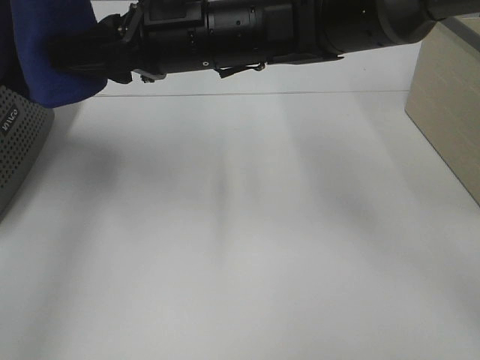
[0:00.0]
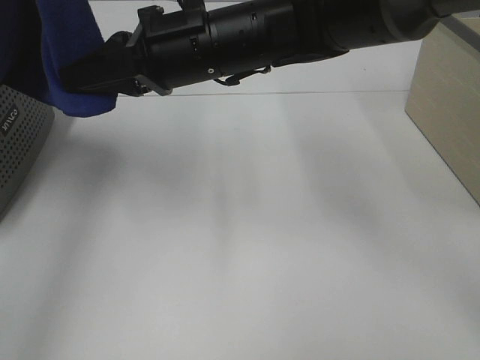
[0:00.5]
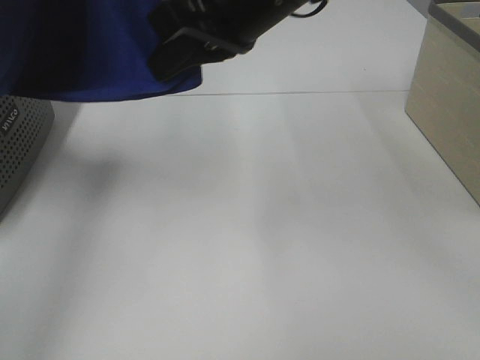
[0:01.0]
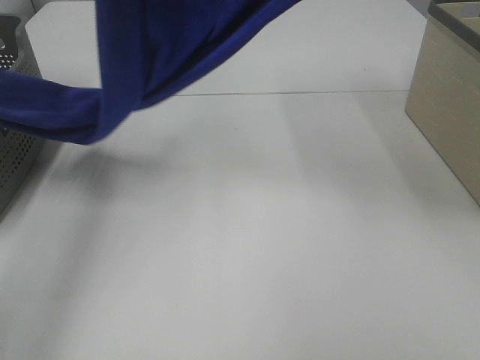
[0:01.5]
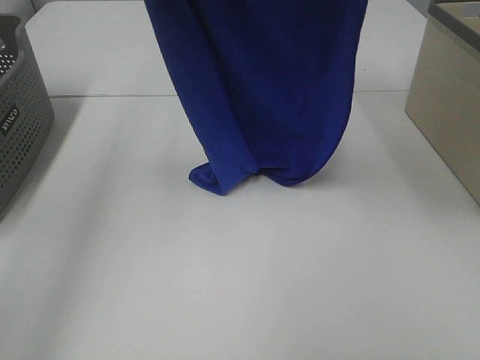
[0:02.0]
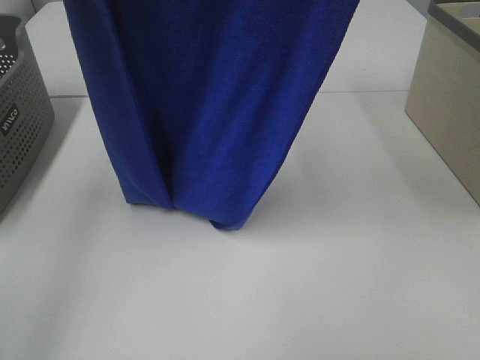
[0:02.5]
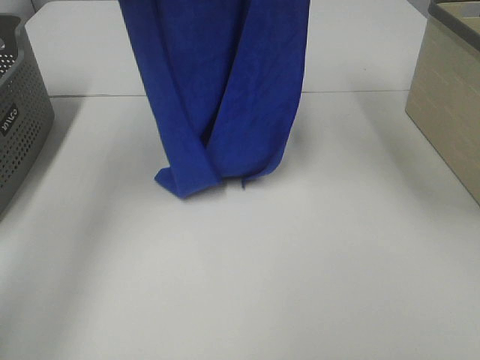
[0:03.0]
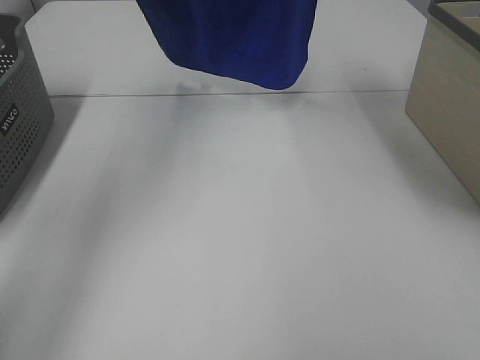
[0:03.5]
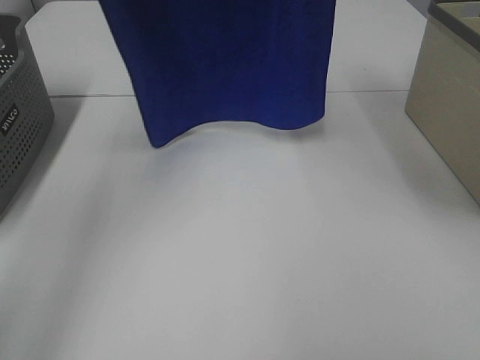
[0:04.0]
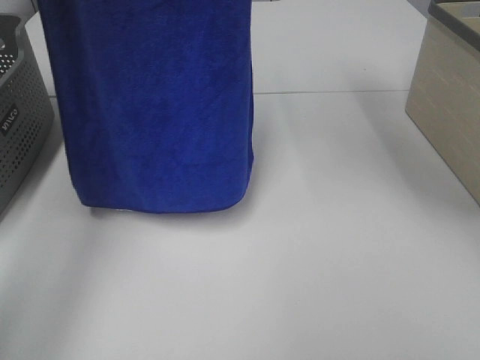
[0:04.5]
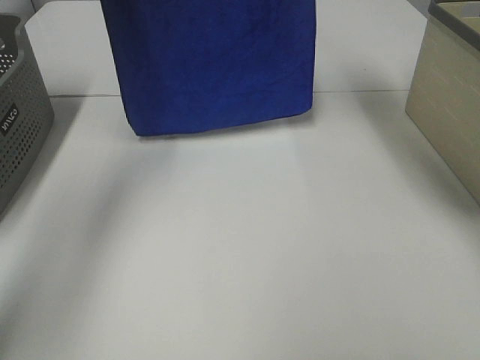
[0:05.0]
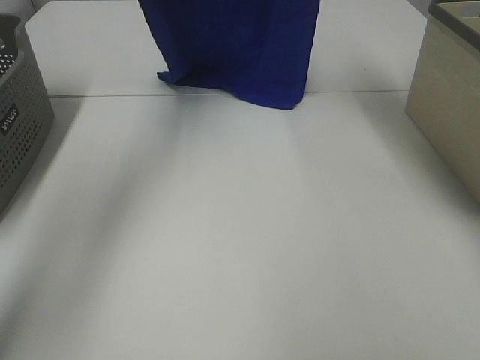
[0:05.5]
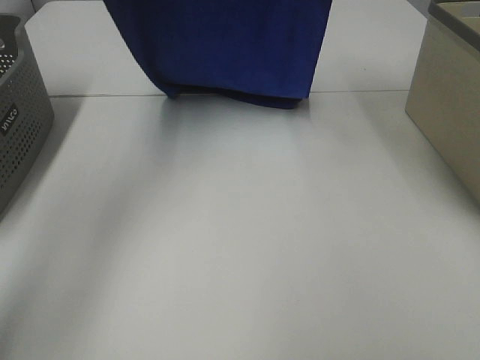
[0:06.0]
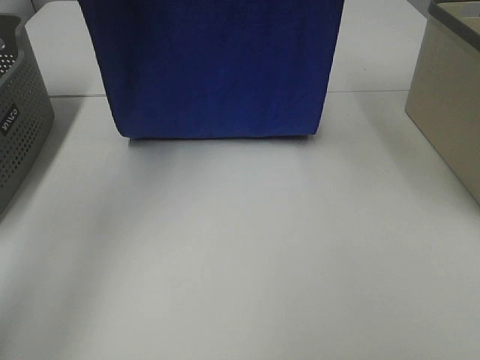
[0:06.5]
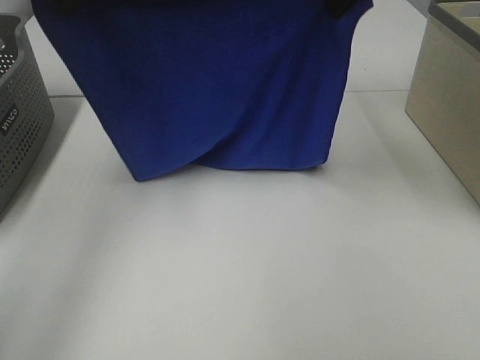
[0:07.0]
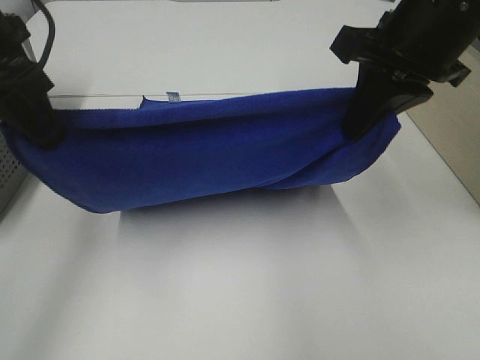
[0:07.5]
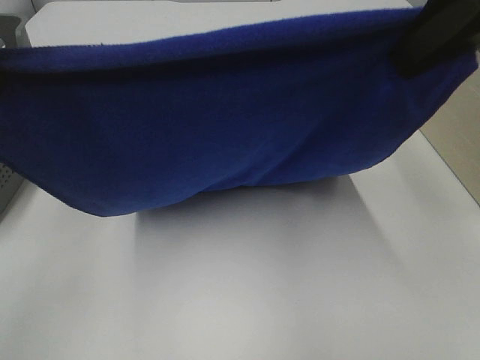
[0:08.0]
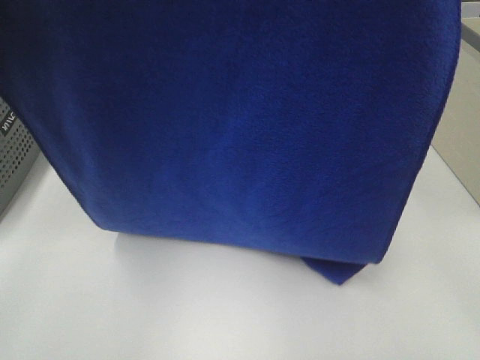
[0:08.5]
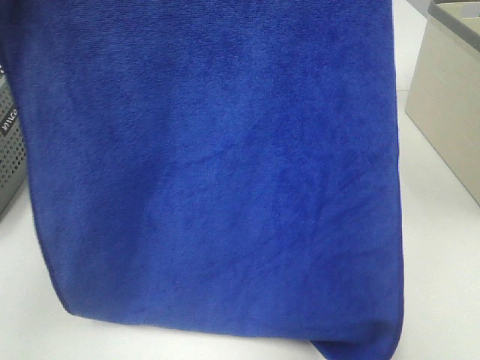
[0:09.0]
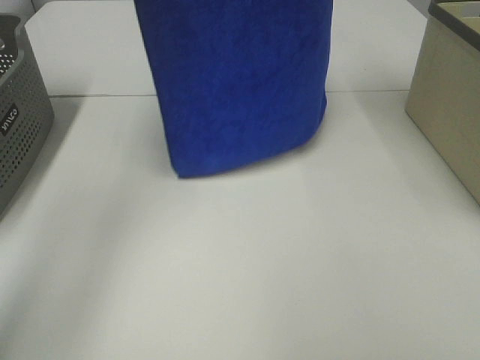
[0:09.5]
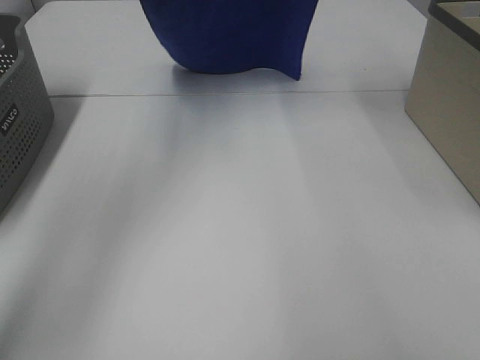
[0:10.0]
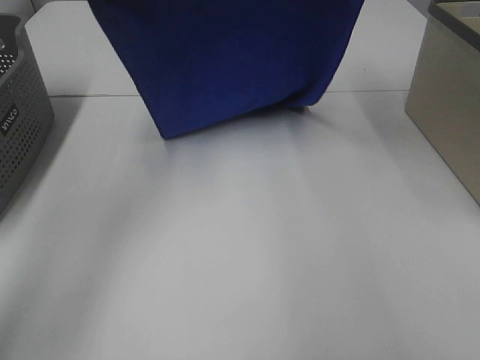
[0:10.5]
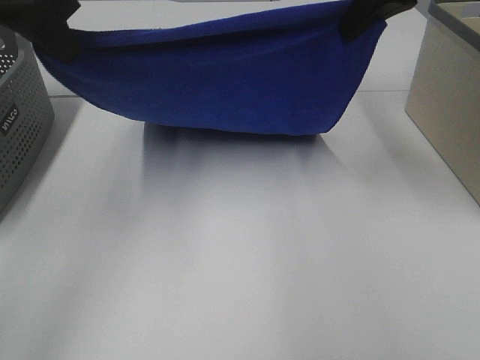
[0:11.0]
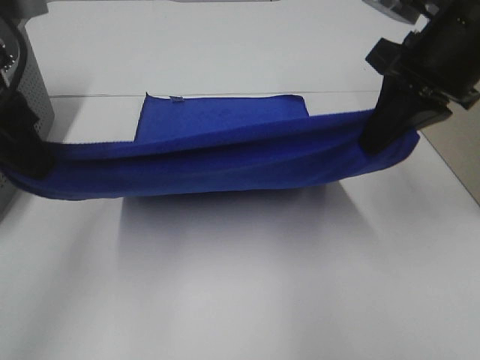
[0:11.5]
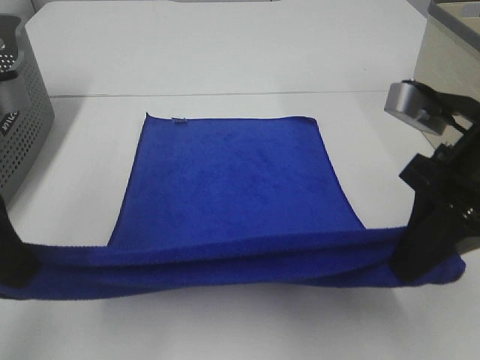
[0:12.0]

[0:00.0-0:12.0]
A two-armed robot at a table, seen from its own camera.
Task of the whole recording: Remove the towel and place it.
Step, 0:01.0 to 0:09.5: Left hand: spread the blue towel flat on the table.
Step, 0:01.0 to 0:09.5: Right hand: spread the blue towel flat on the table.
0:00.0 to 0:02.0: The left gripper shifts by roughly 5 cm. The right gripper goes about 30 cm upward and to the right, and closes up.
0:02.0 to 0:04.0: The left gripper moves some 10 cm forward and comes back, while the right gripper reaches about 10 cm forward, then returns.
0:04.0 to 0:06.0: Both grippers travel together downward and forward, roughly 15 cm.
0:06.0 to 0:08.0: Both grippers travel together backward, some 25 cm.
0:08.0 to 0:10.0: The left gripper heads forward and upward, covering about 25 cm, while the right gripper is displaced forward by about 25 cm.
0:10.0 to 0:12.0: Both grippers move backward and downward, roughly 35 cm.

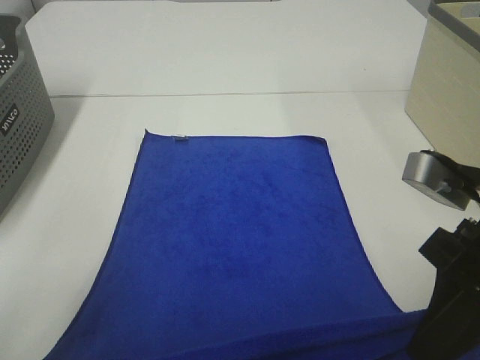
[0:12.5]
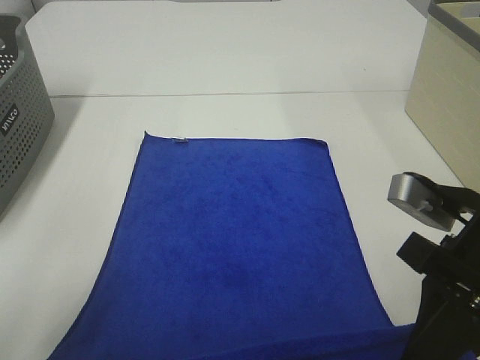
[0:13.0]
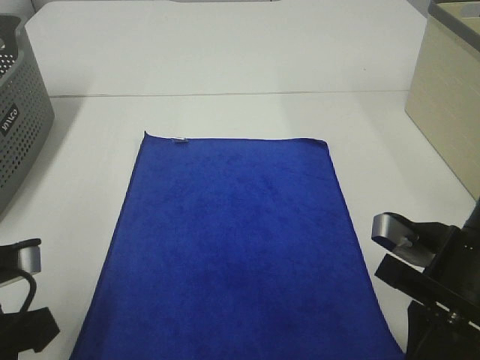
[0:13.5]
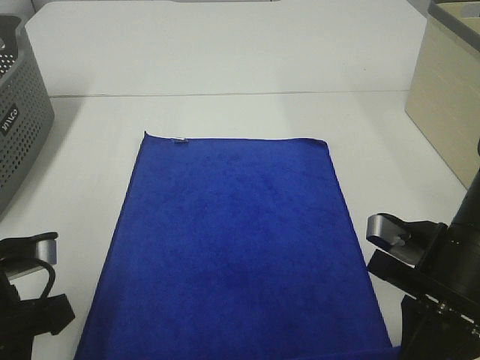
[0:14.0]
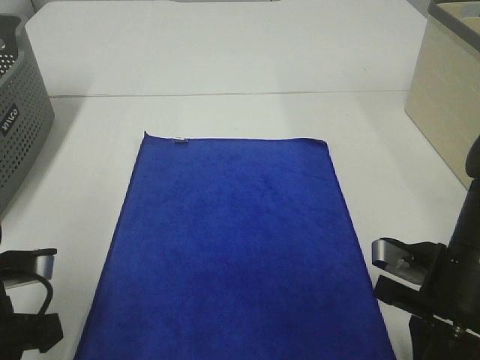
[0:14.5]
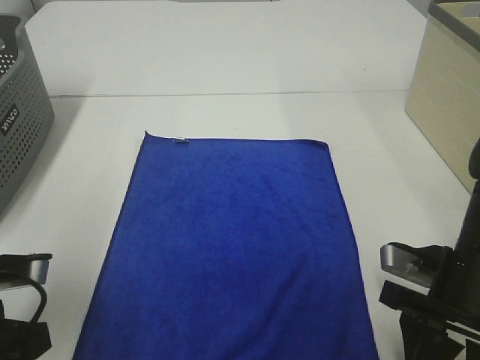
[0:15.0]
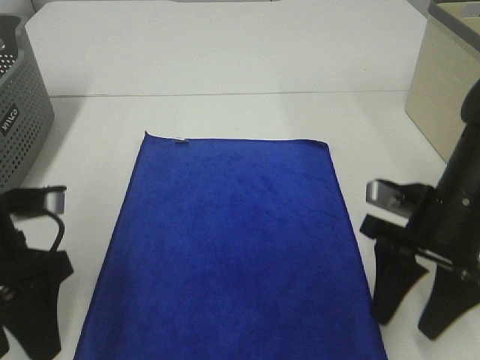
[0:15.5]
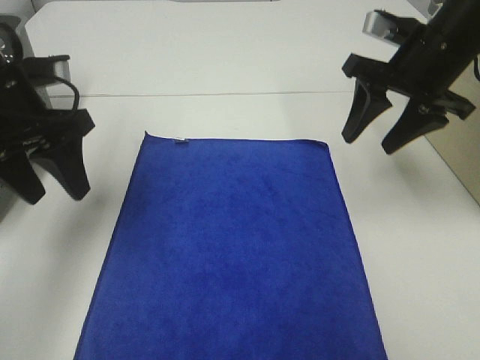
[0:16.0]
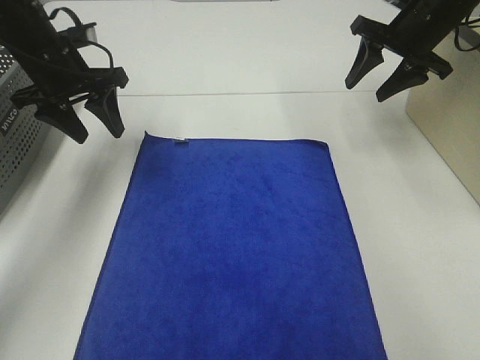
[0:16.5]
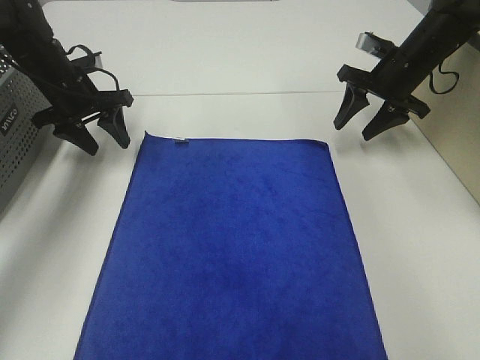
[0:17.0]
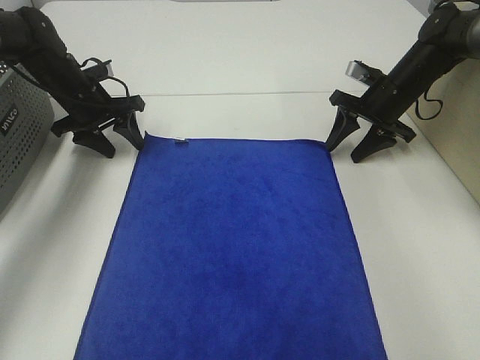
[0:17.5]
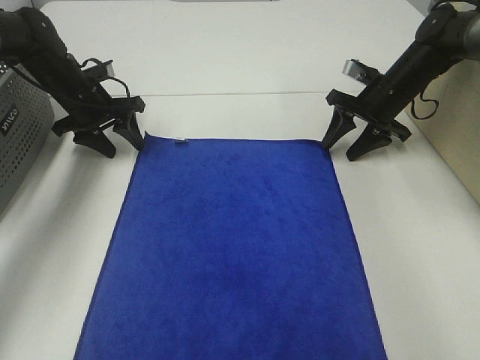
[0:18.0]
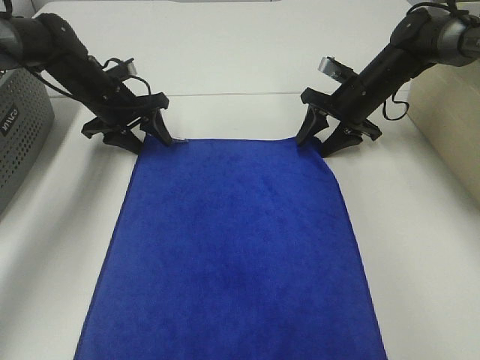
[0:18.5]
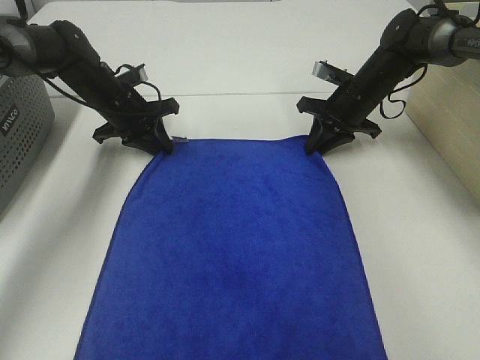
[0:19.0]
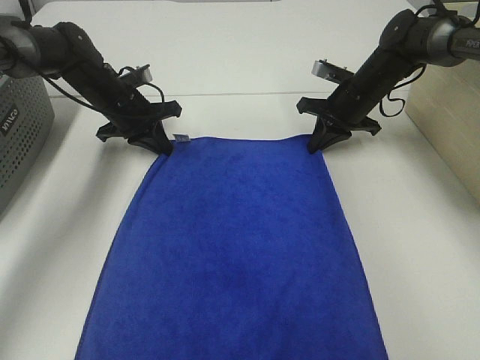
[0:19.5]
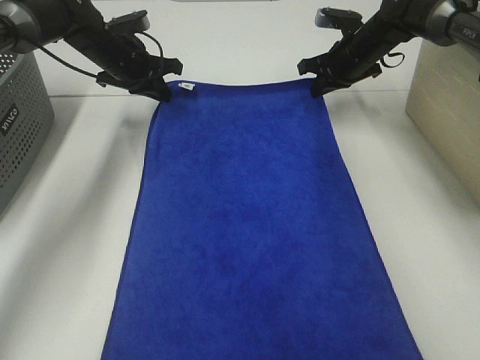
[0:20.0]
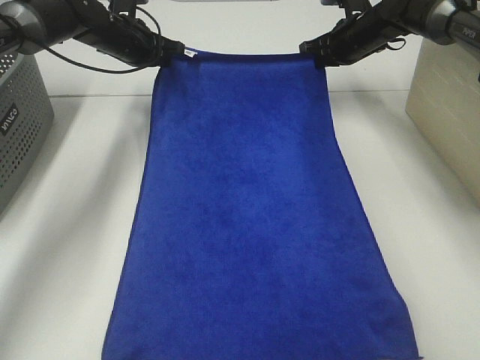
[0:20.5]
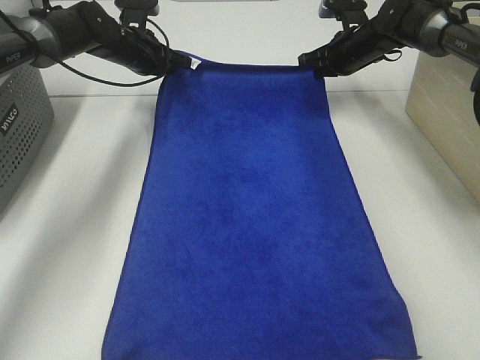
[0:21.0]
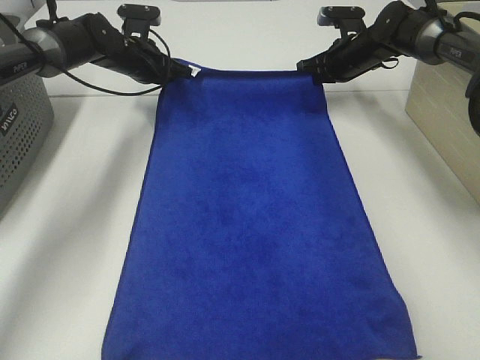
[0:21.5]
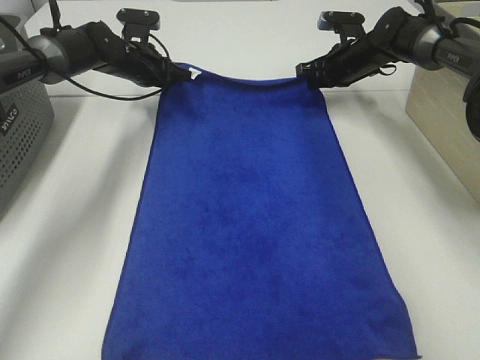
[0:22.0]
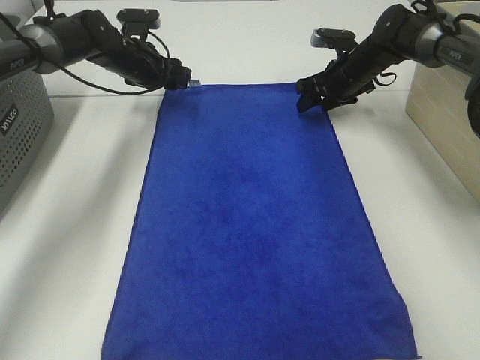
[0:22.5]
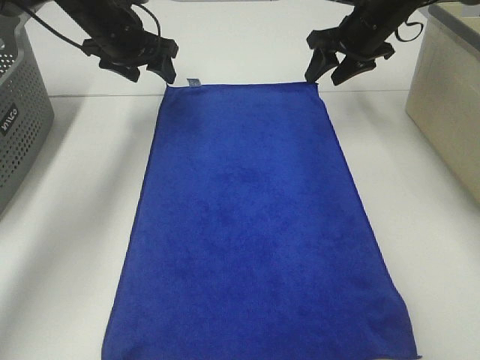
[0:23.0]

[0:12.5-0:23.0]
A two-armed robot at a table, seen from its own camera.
Task of the whole recording: Remove the towel and place it.
Step, 0:12.5 to 0:15.5: Left hand:adjust the blue towel.
Step, 0:12.5 to 0:15.5: Right hand:adjust the blue towel.
0:12.5 to 0:14.5: The right gripper travels downward by approximately 10 cm, while the left gripper shifts roughly 10 cm downward and forward.
0:14.5 to 0:16.5: The grippers both shift forward by roughly 30 cm. The right gripper opens. The left gripper opens its fingers.
0:16.5 to 0:19.0: The left gripper travels downward and forward by roughly 15 cm, and closes its fingers. Meanwhile the right gripper travels downward and to the left by some 15 cm, and closes up.
0:19.0 to 0:21.0: Both grippers move forward and upward, roughly 10 cm.
0:21.0 to 0:23.0: The left gripper is displaced upward by roughly 5 cm, and opens, while the right gripper heads upward and backward, covering about 10 cm, and opens up.

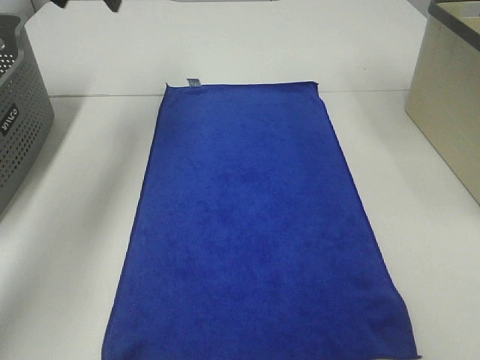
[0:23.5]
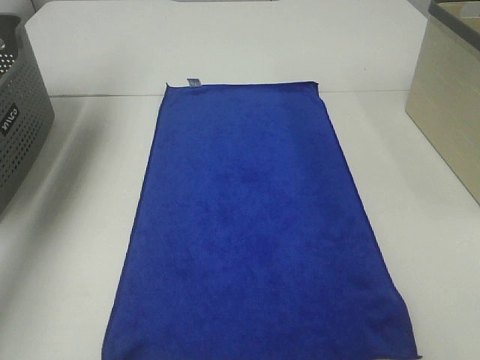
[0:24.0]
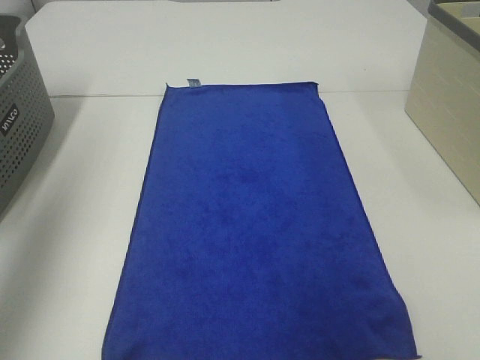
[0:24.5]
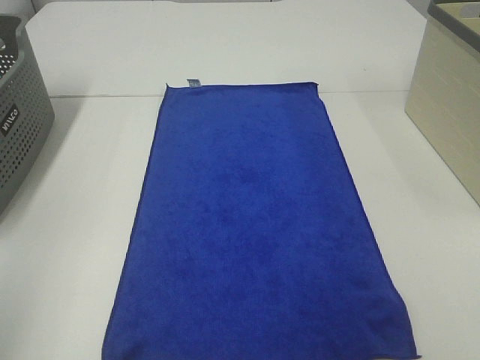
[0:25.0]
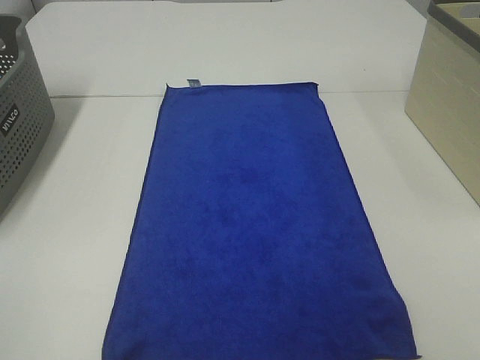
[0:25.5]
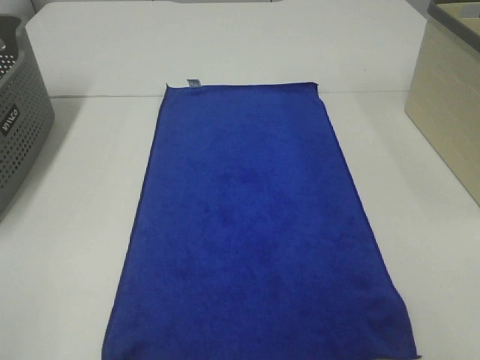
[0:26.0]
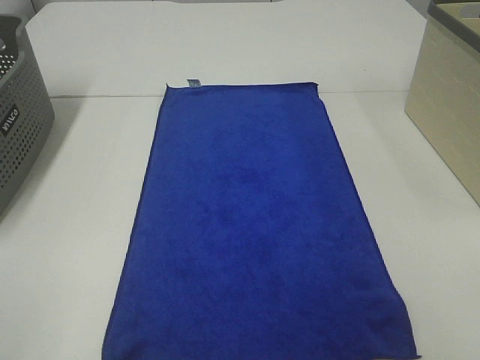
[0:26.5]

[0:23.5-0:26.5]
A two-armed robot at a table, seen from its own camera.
Task of the whole recording: Remove the towel and place it.
0:23.5 to 0:25.0: The grippers both shift backward by about 40 cm.
